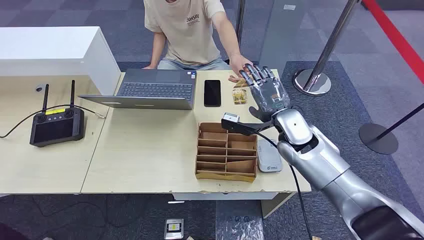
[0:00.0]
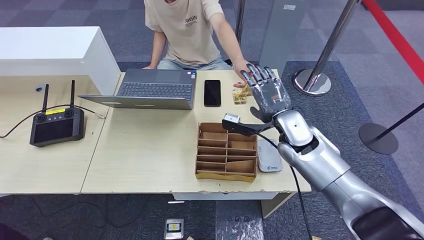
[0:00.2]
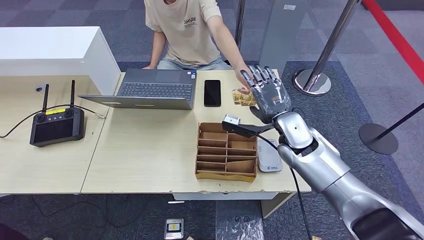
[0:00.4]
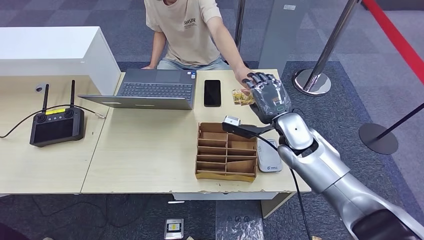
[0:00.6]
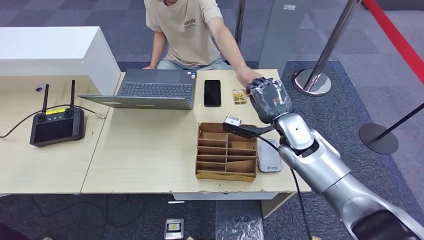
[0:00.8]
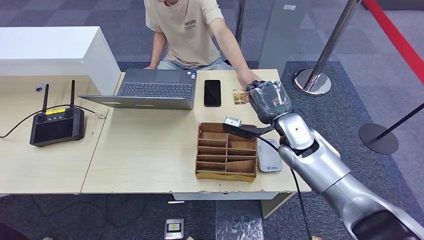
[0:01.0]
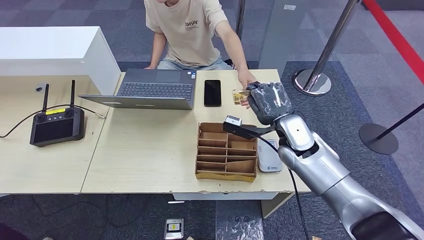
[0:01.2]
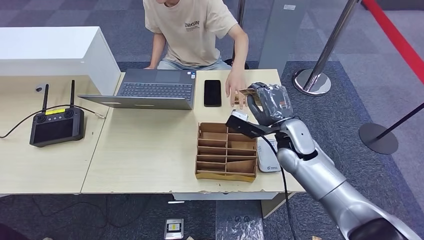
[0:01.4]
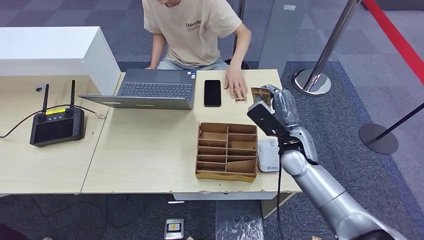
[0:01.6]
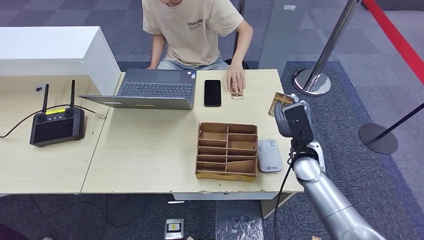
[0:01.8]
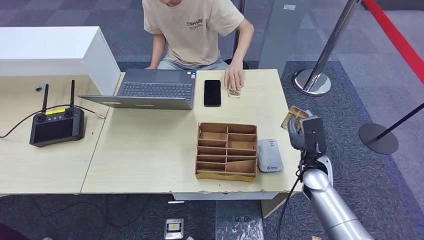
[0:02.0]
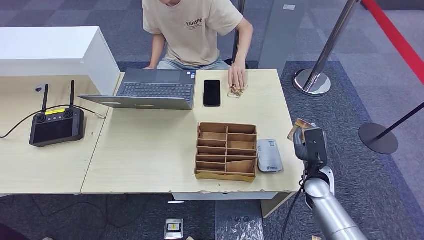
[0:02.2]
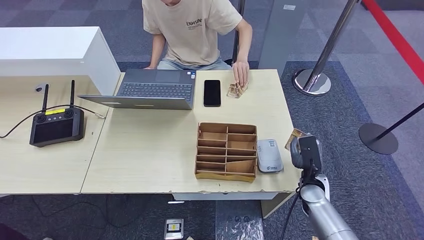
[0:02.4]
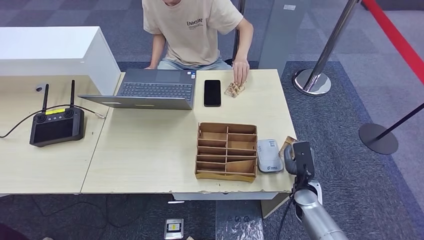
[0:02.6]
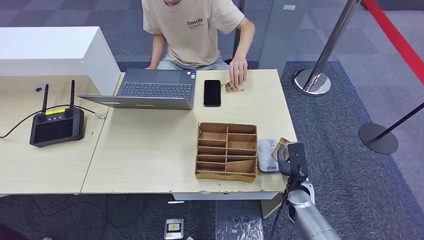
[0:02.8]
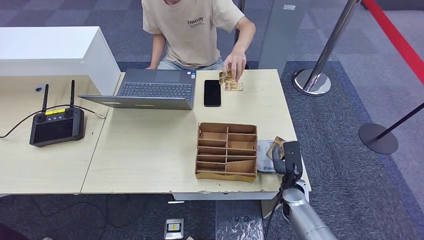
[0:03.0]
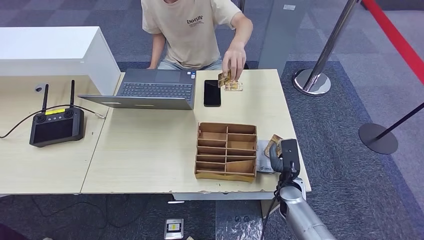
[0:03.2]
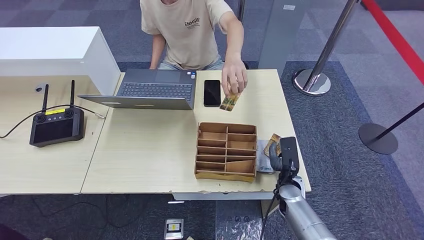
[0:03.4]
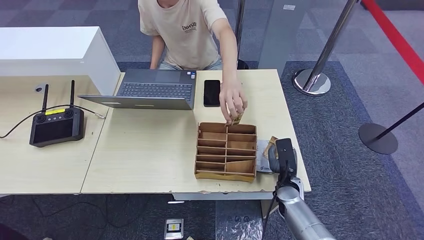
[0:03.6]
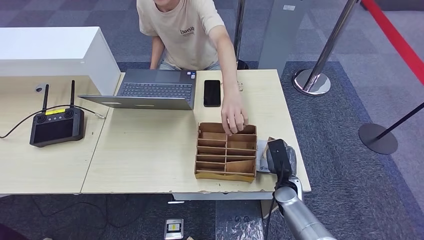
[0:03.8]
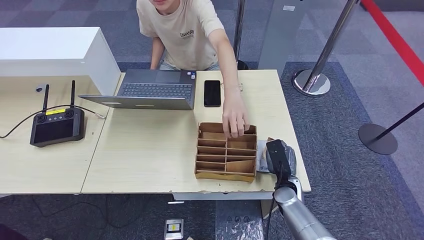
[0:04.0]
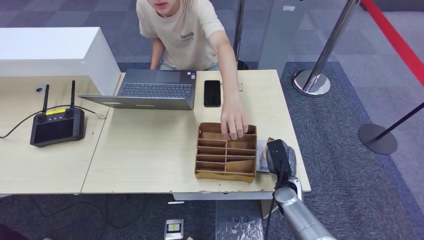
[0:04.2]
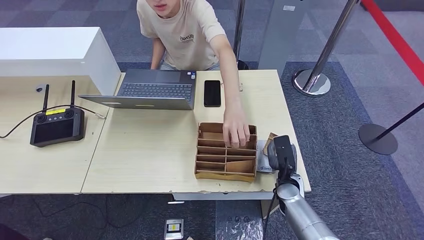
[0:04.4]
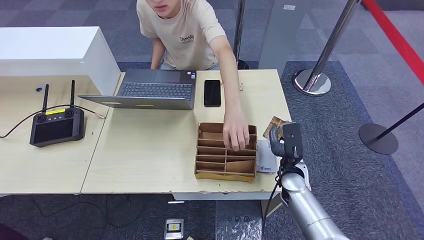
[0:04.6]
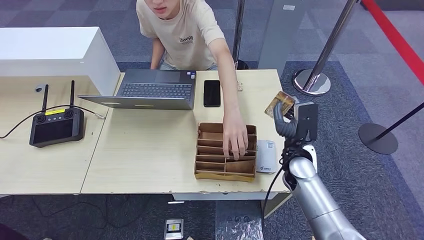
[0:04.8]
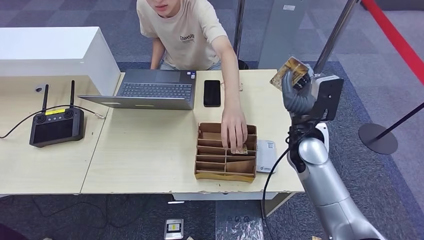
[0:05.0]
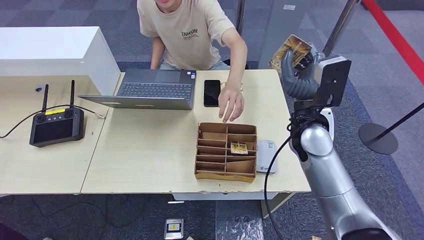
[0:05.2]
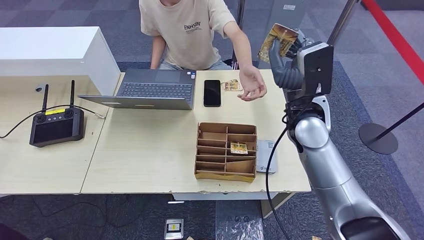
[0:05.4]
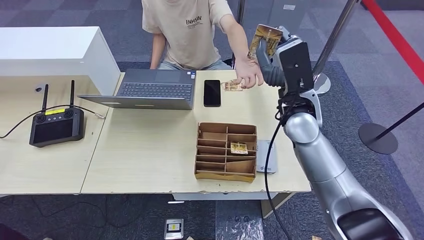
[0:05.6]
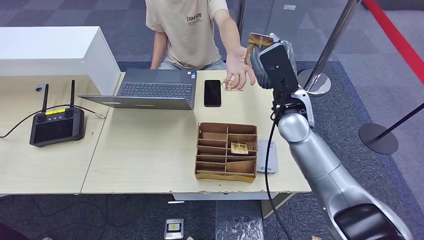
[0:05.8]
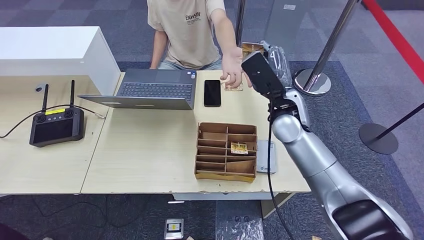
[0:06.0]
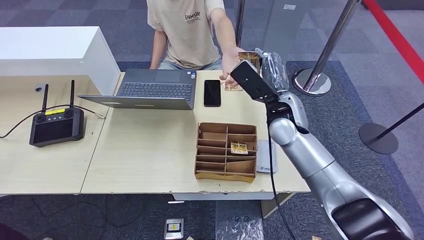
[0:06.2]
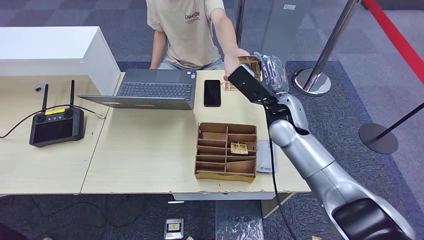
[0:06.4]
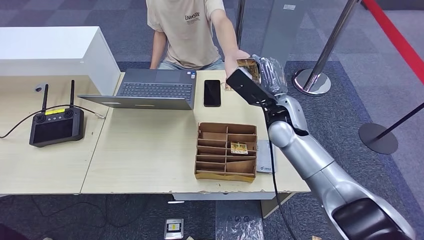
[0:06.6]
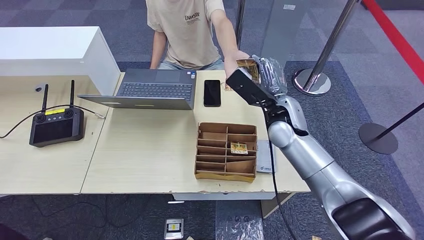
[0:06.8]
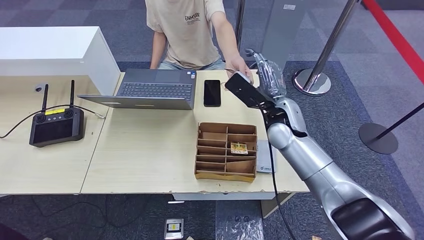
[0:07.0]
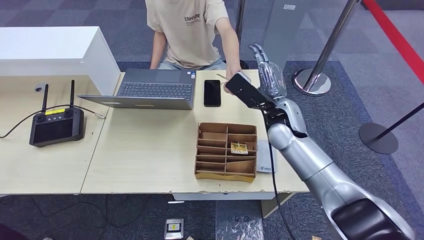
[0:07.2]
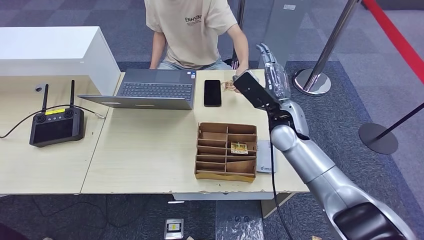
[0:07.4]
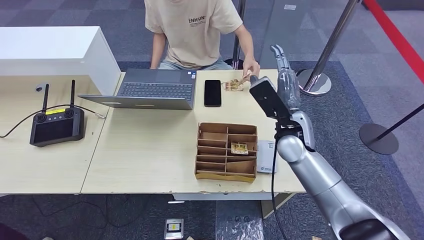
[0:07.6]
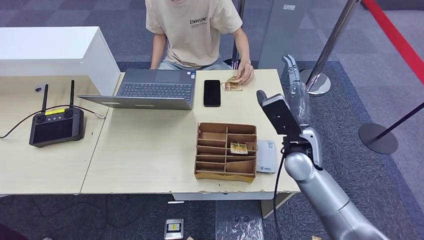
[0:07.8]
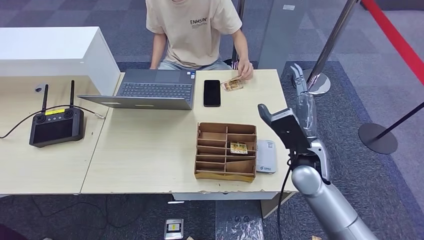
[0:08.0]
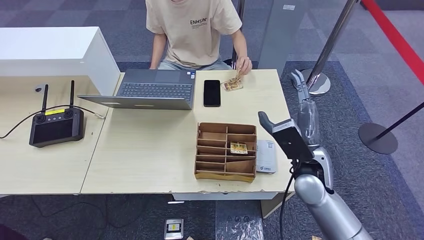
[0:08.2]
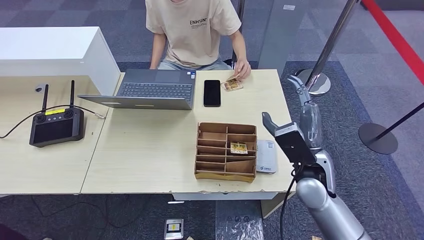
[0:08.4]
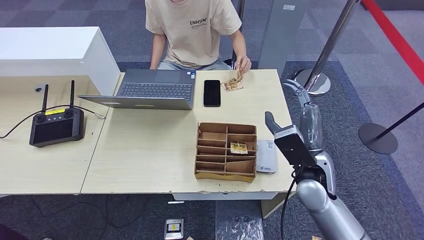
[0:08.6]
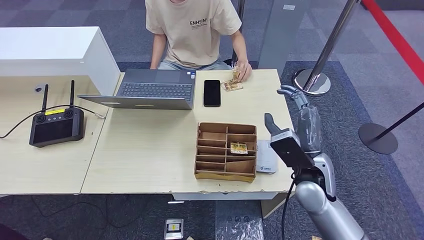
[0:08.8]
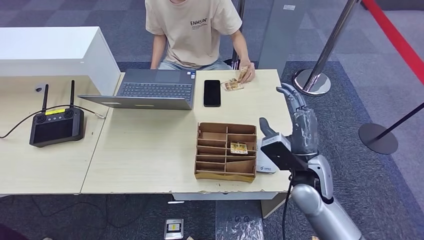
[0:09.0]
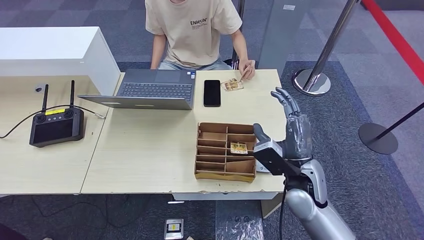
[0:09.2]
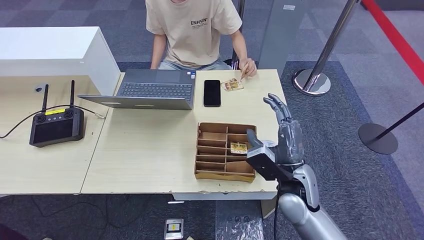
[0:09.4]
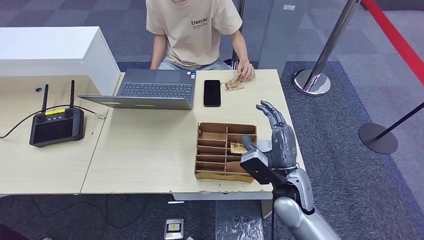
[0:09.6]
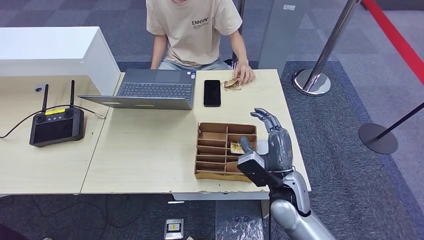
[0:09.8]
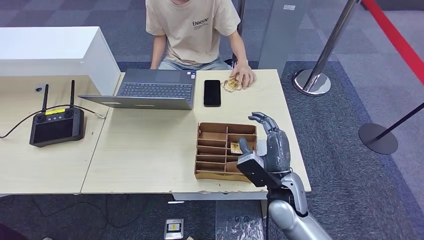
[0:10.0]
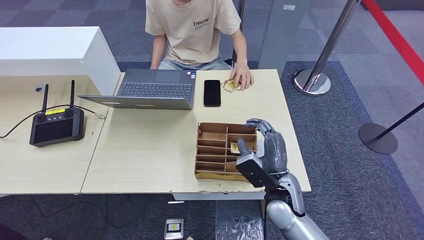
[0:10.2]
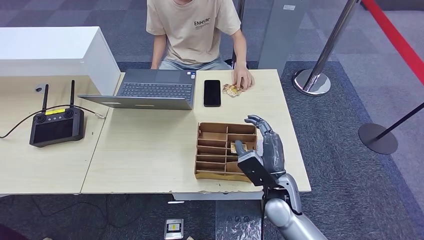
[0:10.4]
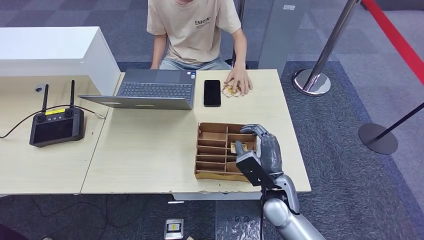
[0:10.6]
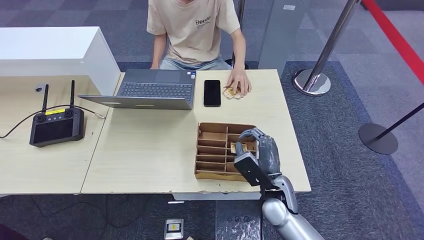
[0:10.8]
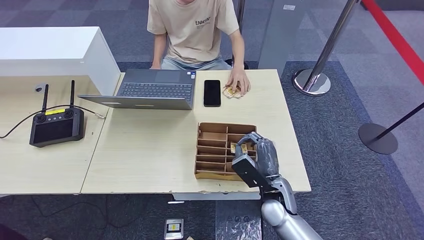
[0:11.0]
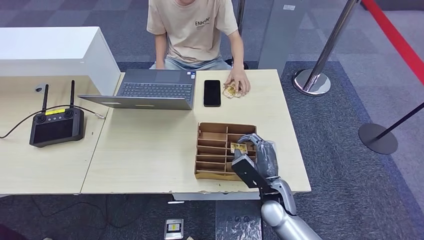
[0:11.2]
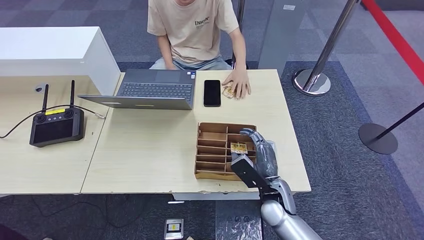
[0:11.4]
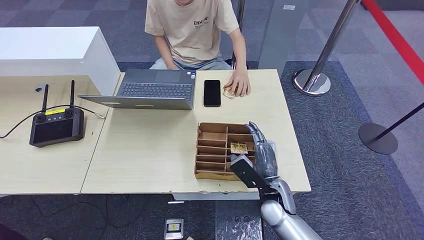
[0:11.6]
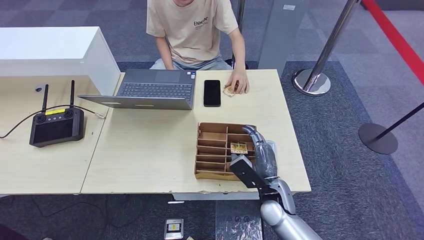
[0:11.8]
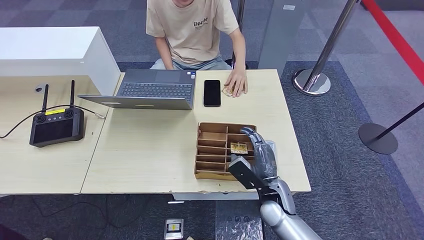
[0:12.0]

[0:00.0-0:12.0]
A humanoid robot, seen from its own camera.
Step, 0:00.0 to 0:01.6: Take the ID card from the person's hand.
Step, 0:01.8 to 0:03.6: Place the ID card on the card reader.
Step, 0:03.8 to 0:07.6: Hand the ID card to the person.
0:01.6 to 0:03.0: The right hand shifts approximately 15 cm downward.
0:03.0 to 0:04.4: There are only small adjustments of the hands.
0:04.4 to 0:06.0: The right hand heads upward, covering roughly 25 cm.
0:06.0 to 0:07.6: The right hand ends up some 5 cm from where it was.
0:07.6 to 0:09.0: The right hand goes some 10 cm backward.
0:09.0 to 0:10.4: The right hand shifts about 10 cm downward and to the left.
0:10.4 to 0:12.0: The right hand heads downward, covering some 5 cm.

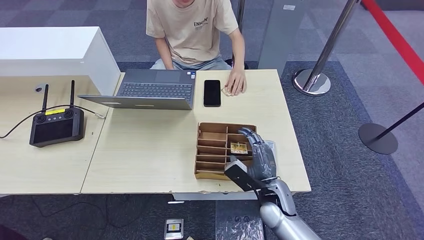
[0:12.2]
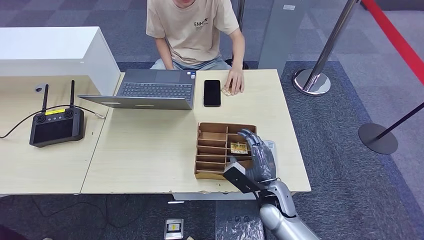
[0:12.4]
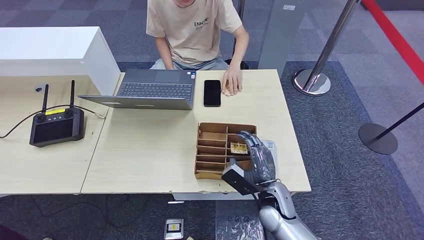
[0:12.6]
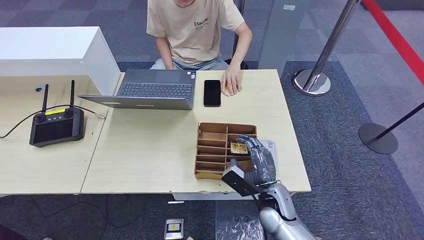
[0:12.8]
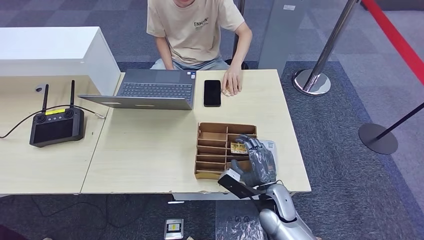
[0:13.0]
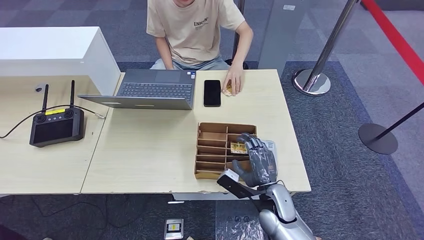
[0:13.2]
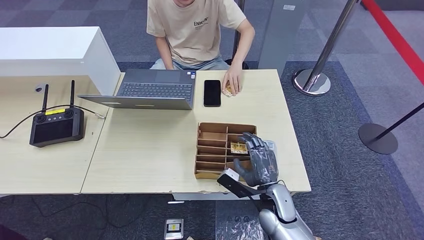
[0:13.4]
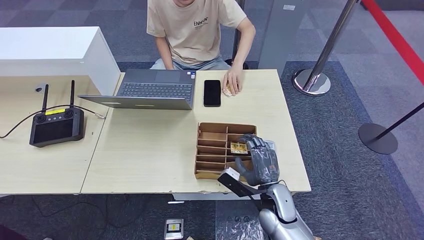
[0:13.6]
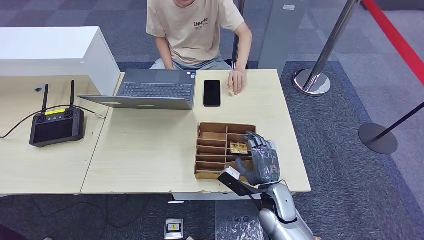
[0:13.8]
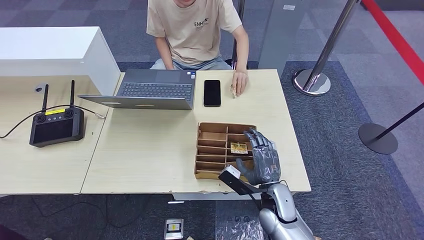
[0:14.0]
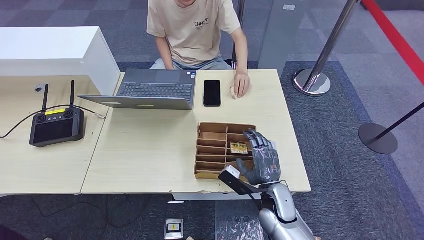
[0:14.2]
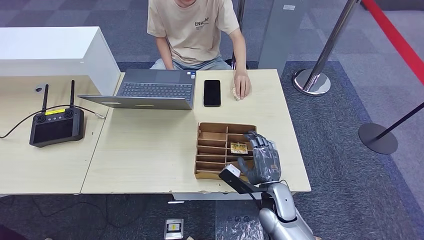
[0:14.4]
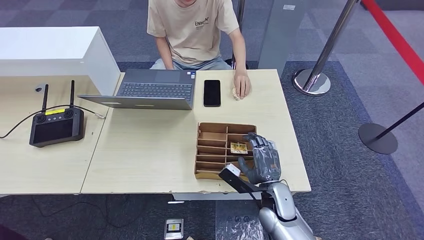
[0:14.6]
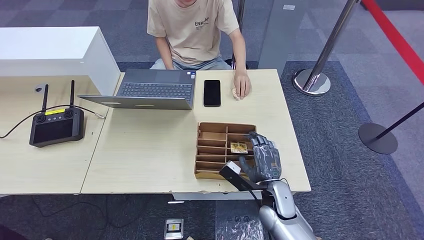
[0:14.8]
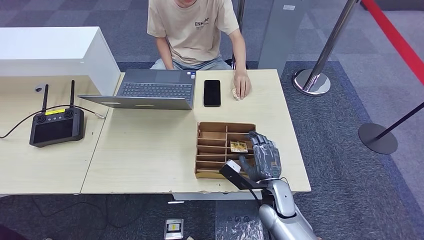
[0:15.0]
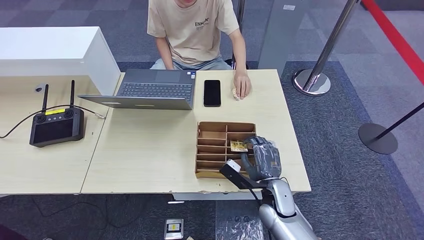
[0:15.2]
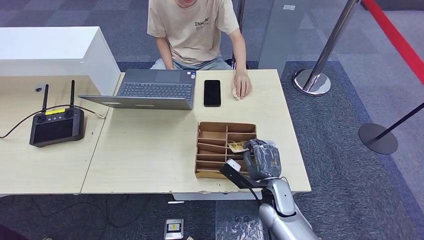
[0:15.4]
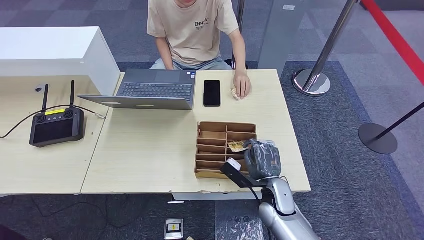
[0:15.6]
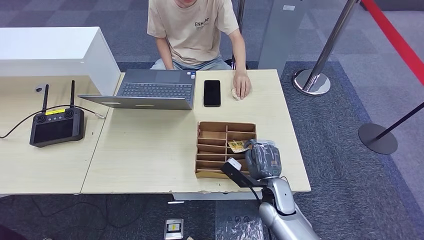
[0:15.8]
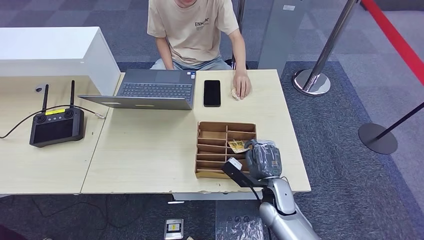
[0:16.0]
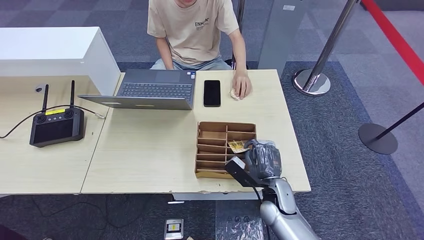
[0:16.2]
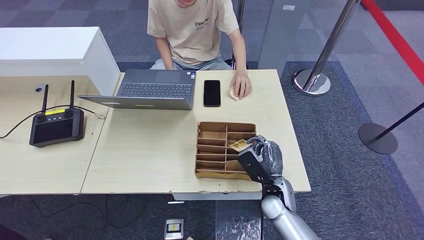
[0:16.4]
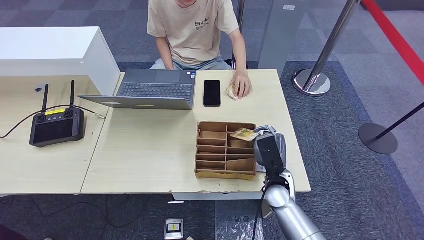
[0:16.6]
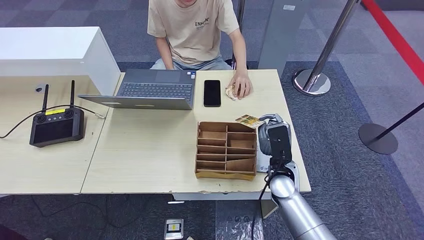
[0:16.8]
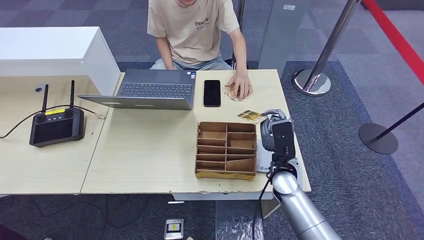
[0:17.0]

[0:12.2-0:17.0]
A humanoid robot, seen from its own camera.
Step, 0:12.2 to 0:16.6: Pick up the room key from the key card box.
0:12.2 to 0:15.4: The hands move only a little.
0:15.4 to 0:17.0: The right hand heads upward, covering about 5 cm.
